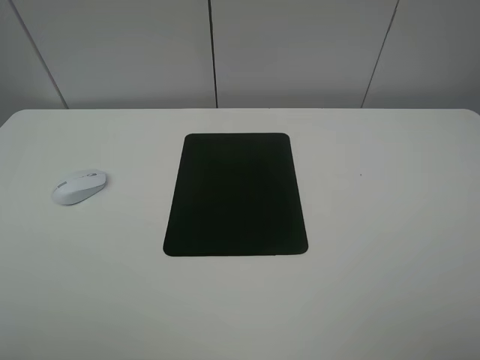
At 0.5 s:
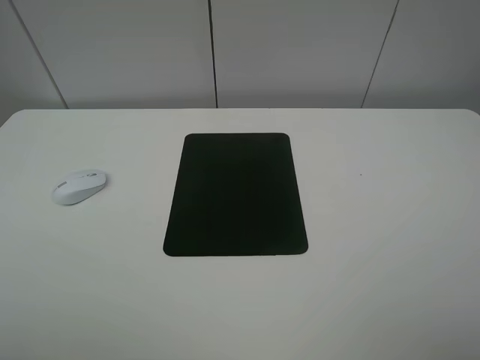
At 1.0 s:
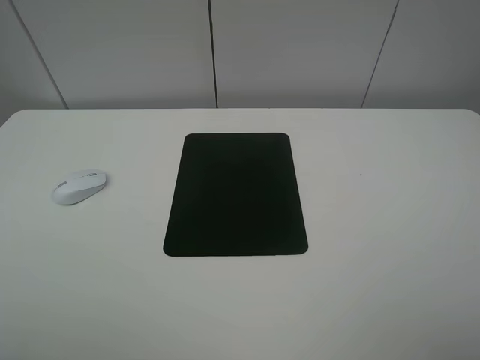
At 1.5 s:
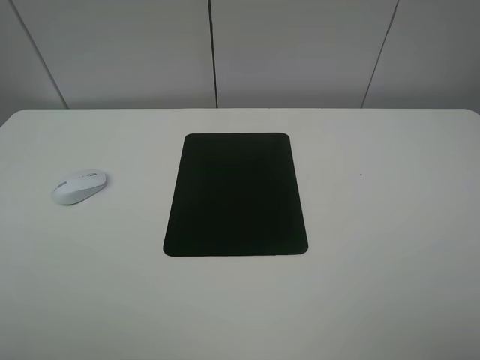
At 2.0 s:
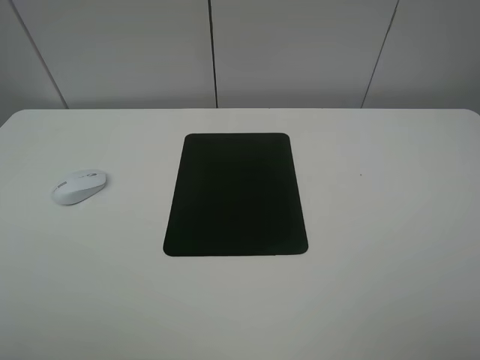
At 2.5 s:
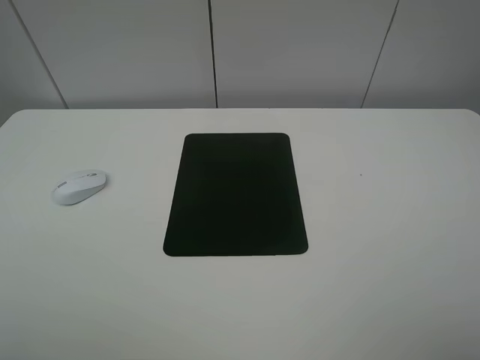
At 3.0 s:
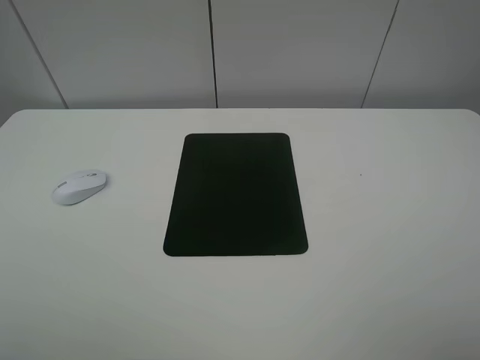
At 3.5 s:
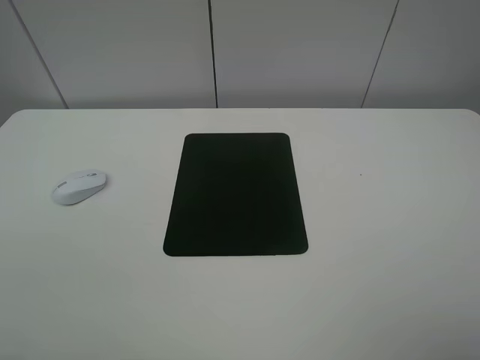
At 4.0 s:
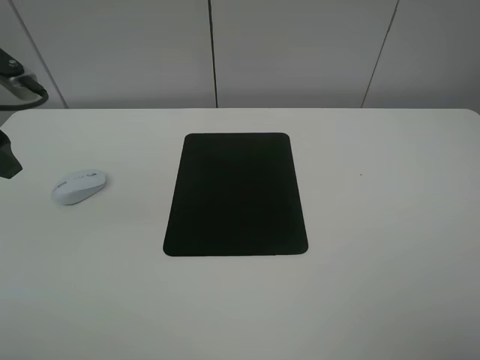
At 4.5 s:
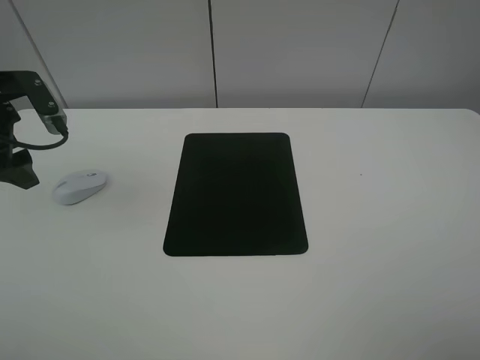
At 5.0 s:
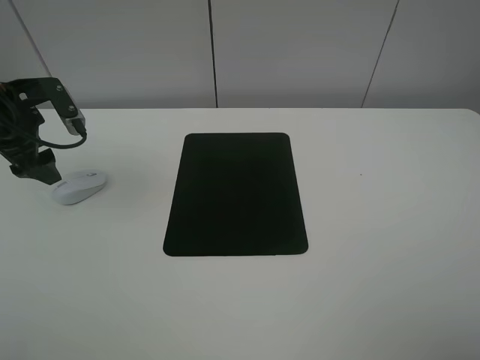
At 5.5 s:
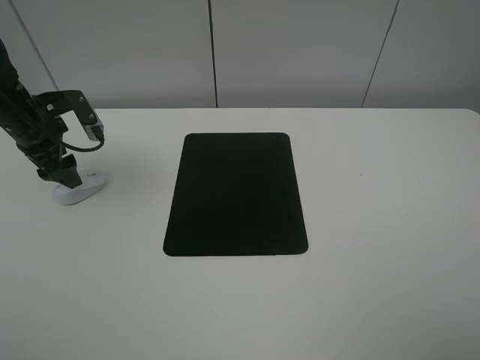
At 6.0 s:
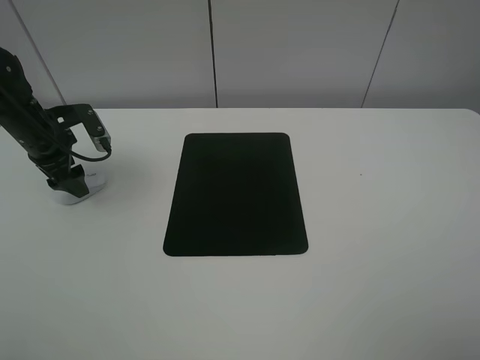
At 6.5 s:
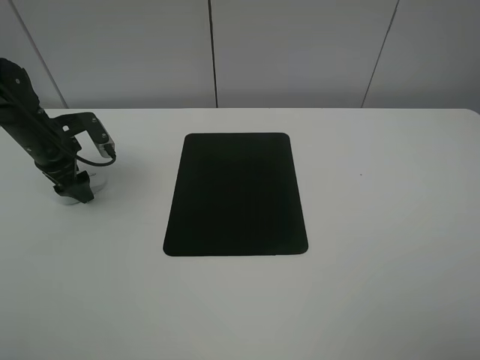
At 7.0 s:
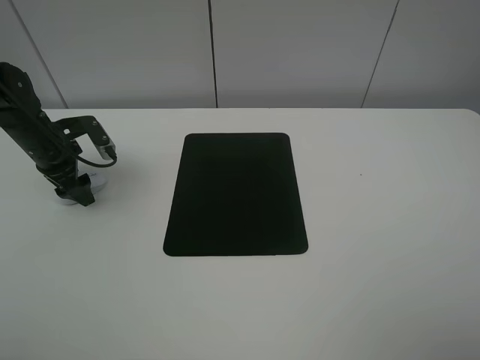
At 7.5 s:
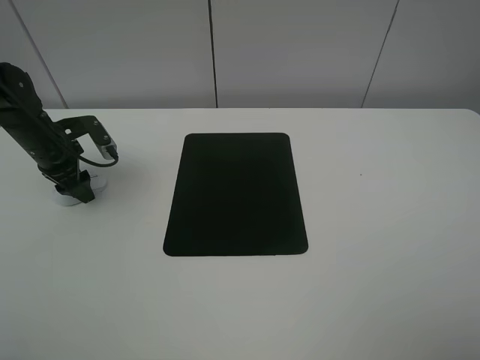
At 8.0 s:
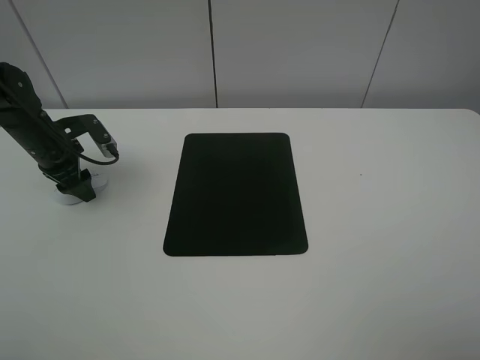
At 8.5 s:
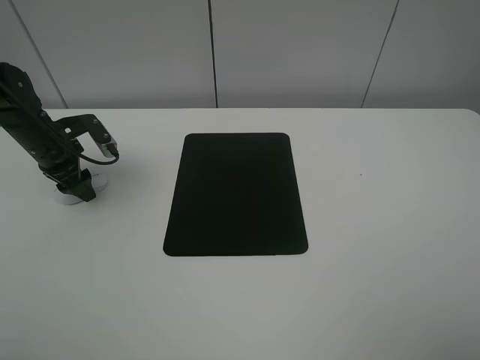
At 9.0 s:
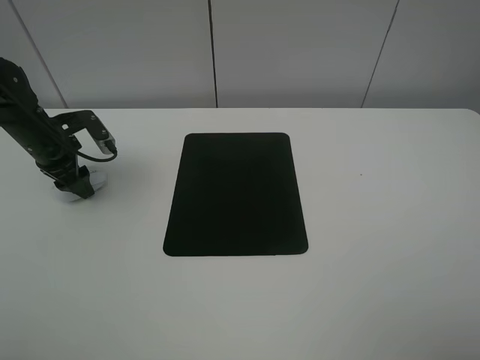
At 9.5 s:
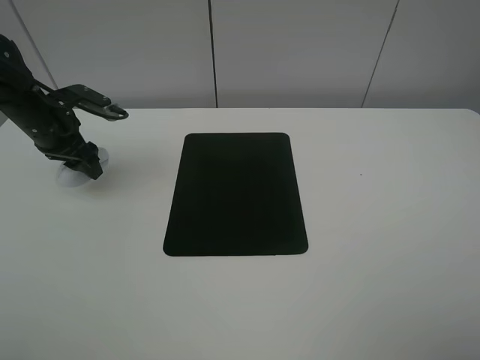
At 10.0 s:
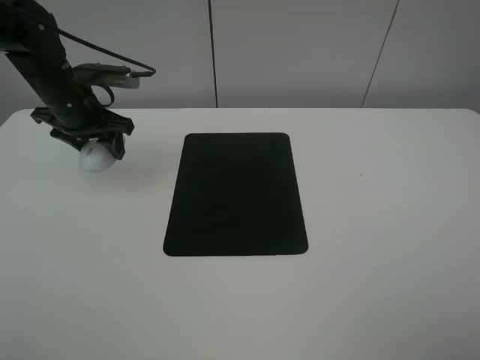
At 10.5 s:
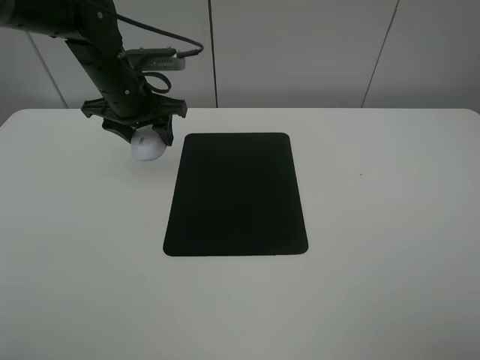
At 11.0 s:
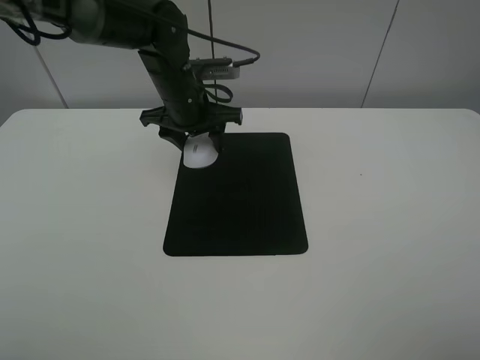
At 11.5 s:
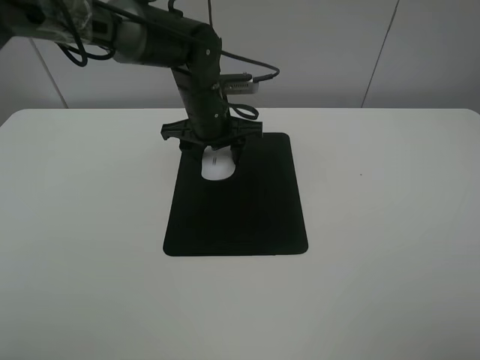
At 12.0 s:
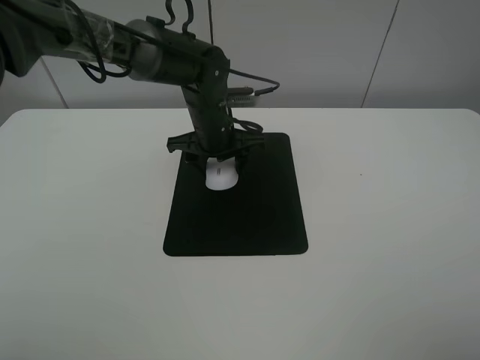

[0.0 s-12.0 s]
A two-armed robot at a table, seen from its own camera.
Step, 0.0 to 8.0 s: Grasp the mouse with the left gripper.
0.0 to 2.0 s: The two grippers keep their place.
2.0 to 4.0 s: The left gripper shifts some 25 cm forward.
4.0 to 6.0 s: The left gripper shifts about 15 cm downward and forward.
6.0 to 8.0 s: The left gripper closes up.
8.0 to 10.0 s: The left gripper goes approximately 10 cm upward and to the right.
10.0 to 12.0 s: The left gripper travels to the right by roughly 20 cm.

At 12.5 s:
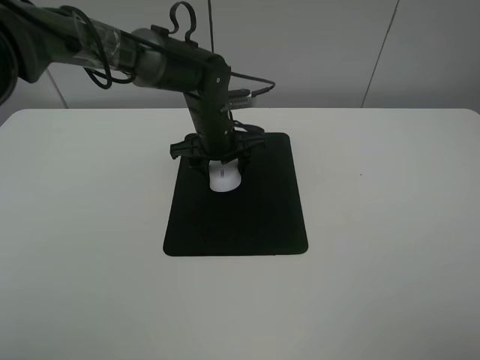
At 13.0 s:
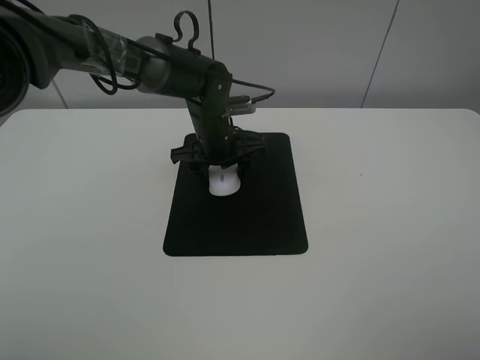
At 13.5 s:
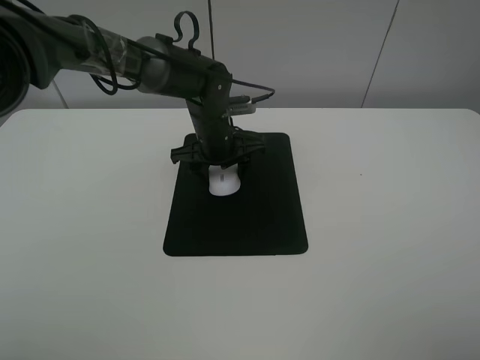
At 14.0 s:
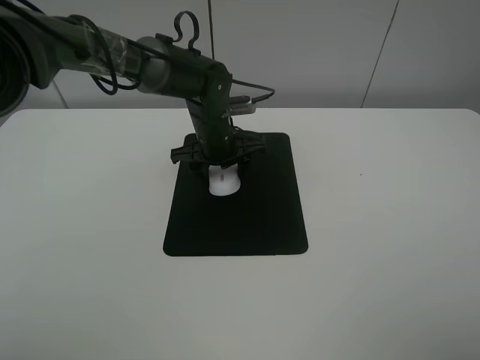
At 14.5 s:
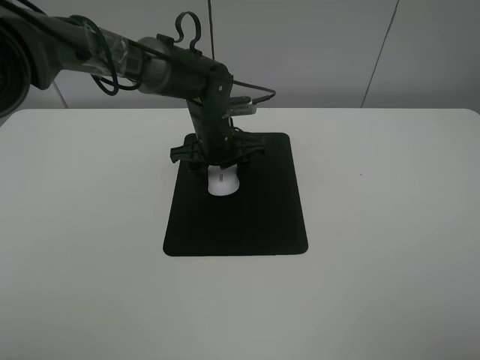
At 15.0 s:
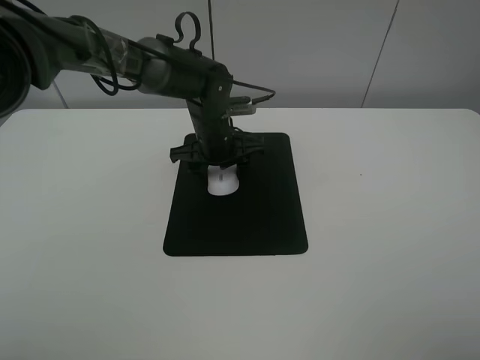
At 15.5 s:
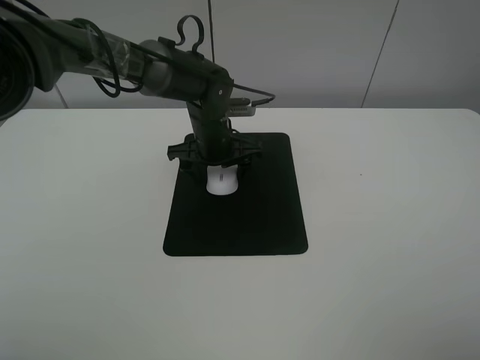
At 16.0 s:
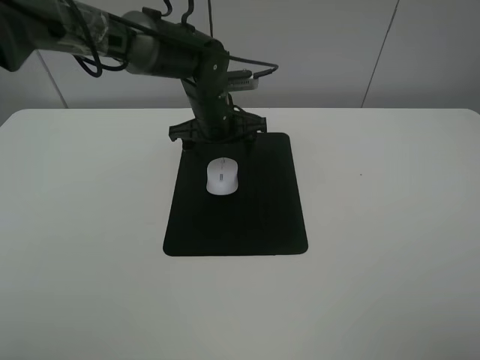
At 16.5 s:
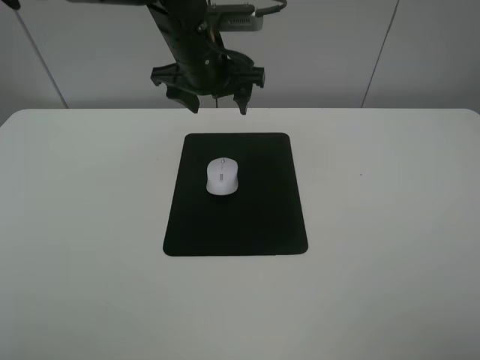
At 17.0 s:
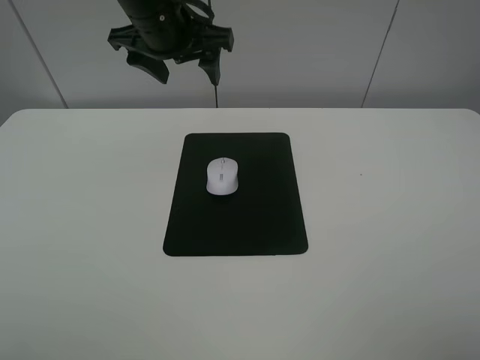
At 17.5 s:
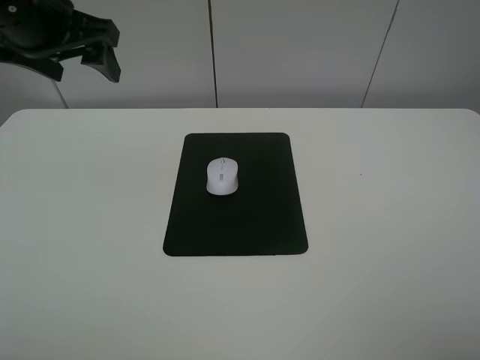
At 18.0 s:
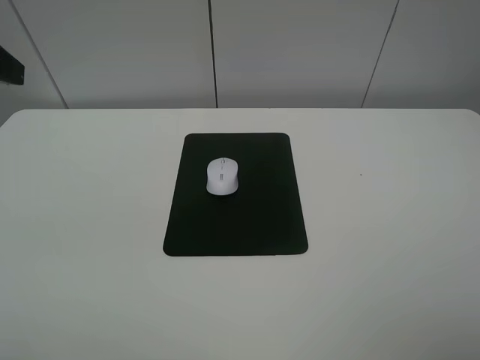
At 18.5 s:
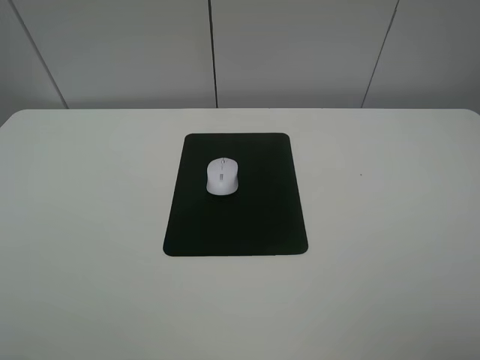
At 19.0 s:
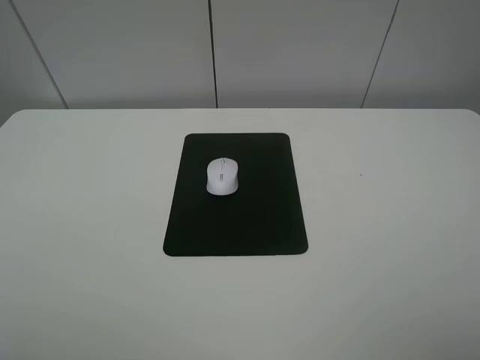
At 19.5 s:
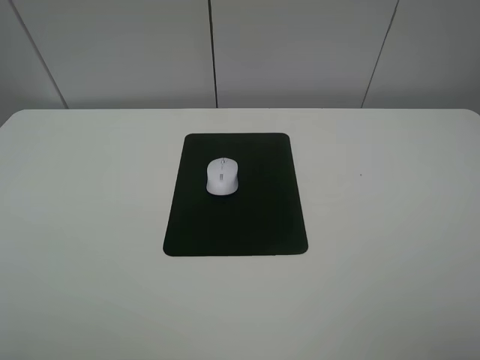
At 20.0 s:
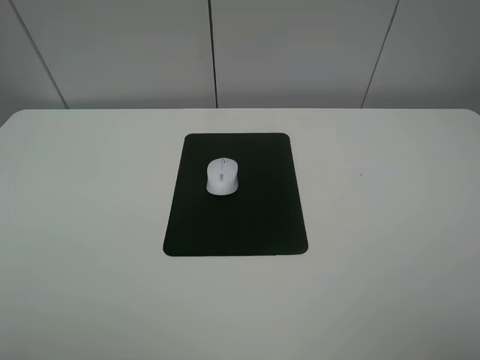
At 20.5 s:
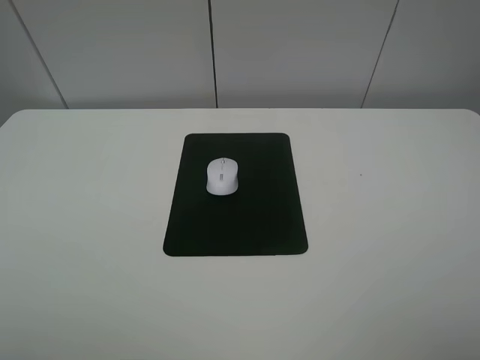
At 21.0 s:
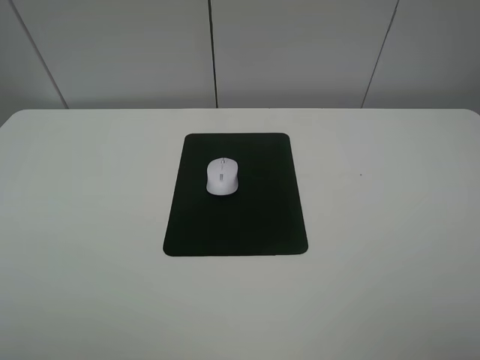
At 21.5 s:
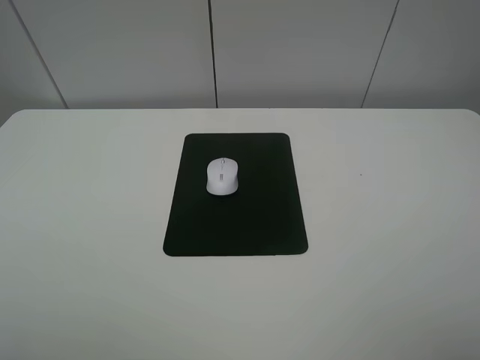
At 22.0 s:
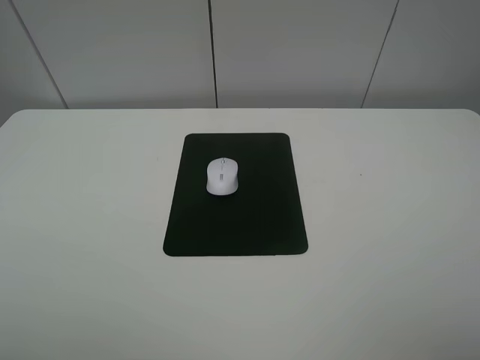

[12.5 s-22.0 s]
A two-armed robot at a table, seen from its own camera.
Step, 12.5 to 15.5 s: Place the mouse on the mouse mat with the left gripper.
12.5 to 14.5 s: The two grippers keep their place.
14.5 to 16.5 s: The left gripper moves upward, approximately 15 cm, and opens up.
16.5 to 18.0 s: The left gripper is displaced to the left, backward and upward by approximately 30 cm.

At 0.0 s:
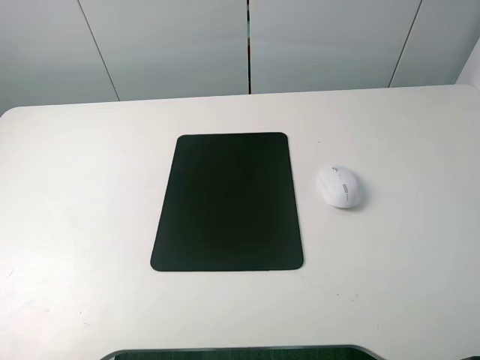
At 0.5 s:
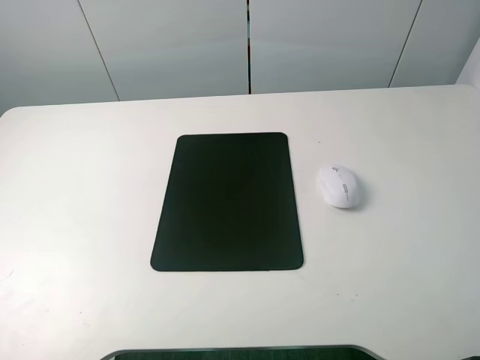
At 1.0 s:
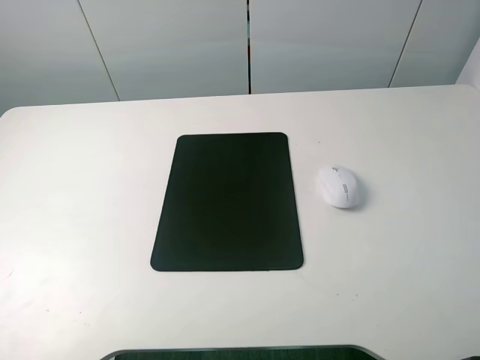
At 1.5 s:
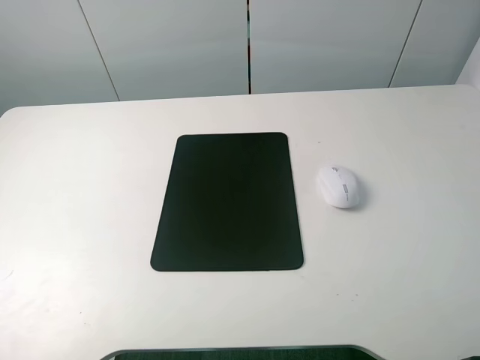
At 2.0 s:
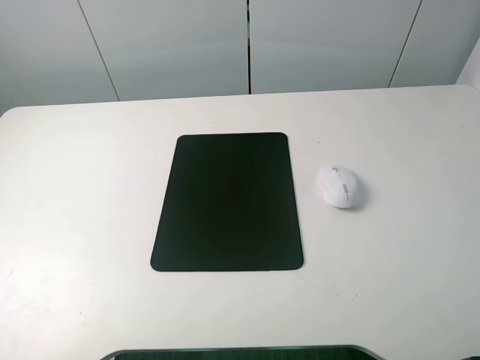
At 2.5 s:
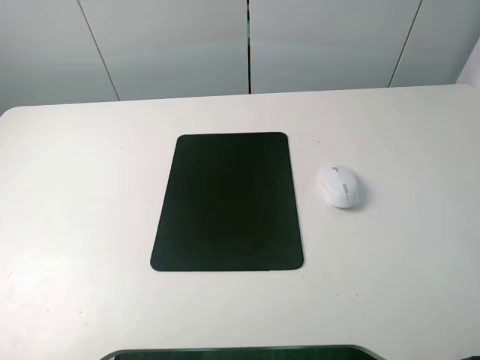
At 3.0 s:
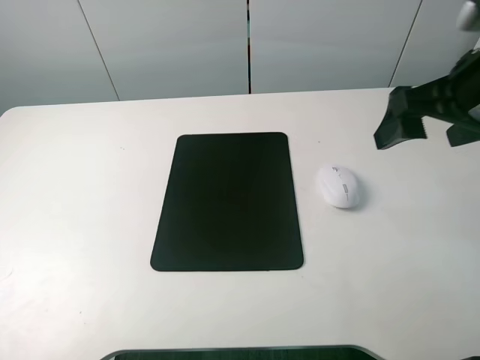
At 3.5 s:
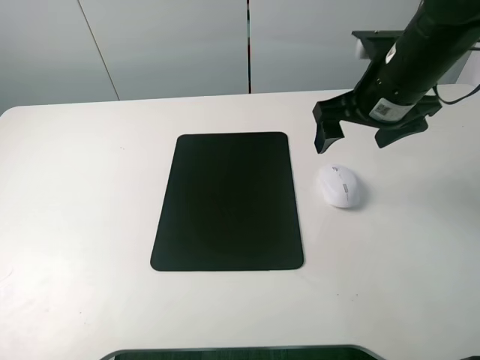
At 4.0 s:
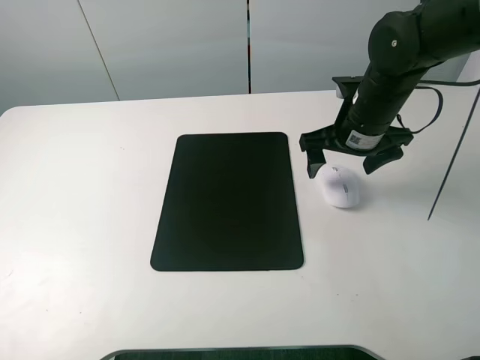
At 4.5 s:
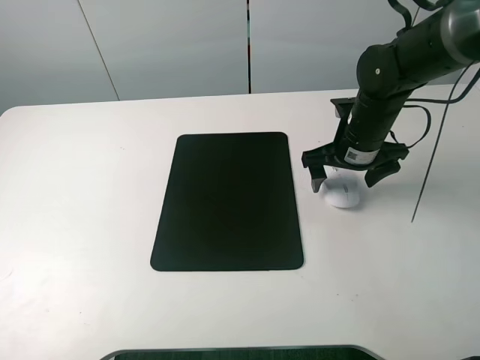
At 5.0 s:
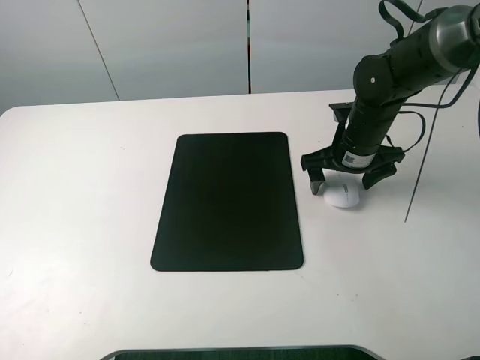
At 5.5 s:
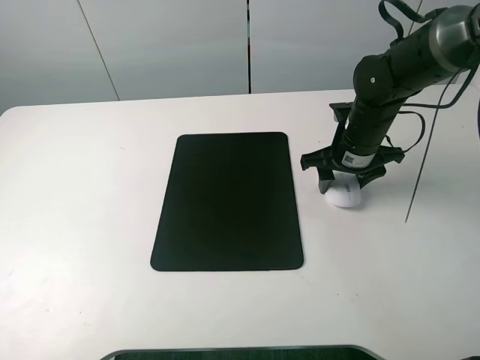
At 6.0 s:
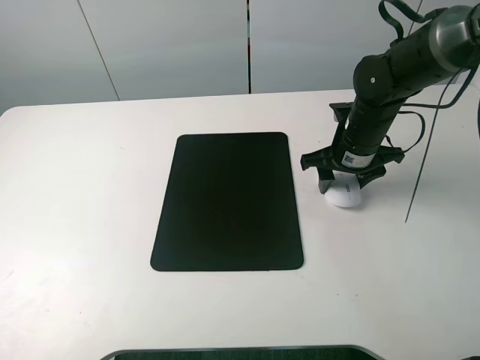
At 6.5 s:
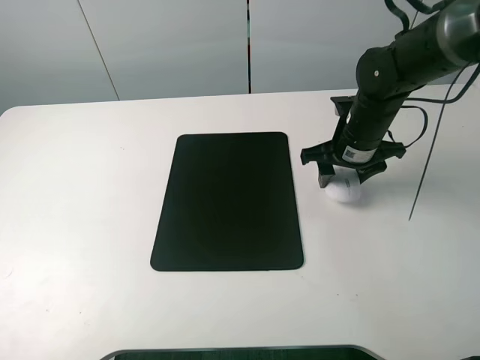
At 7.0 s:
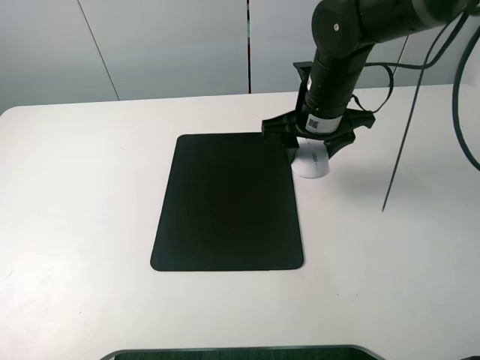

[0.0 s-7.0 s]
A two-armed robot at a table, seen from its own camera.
Step, 0.0 to 5.5 s: Grasp the mouse with the right gripper.
2.0 to 3.5 s: The right gripper heads forward and to the left, covering approximately 30 cm, and opens its fingers.
3.5 to 5.0 s: The right gripper heads downward, covering some 10 cm.
5.0 to 7.0 s: The right gripper moves to the left and upward, approximately 10 cm, and closes up.
